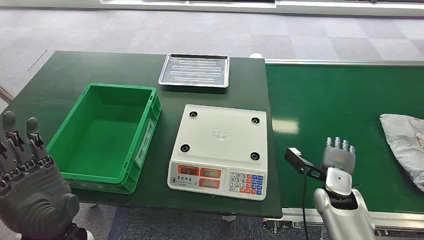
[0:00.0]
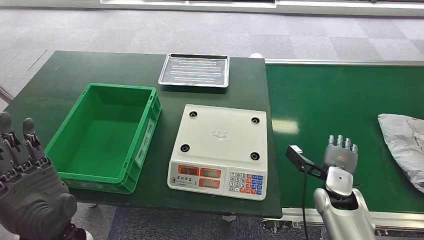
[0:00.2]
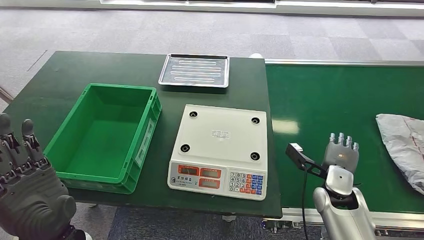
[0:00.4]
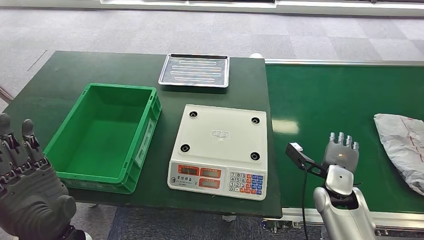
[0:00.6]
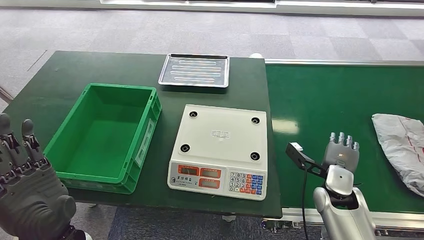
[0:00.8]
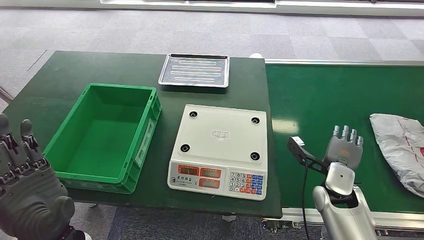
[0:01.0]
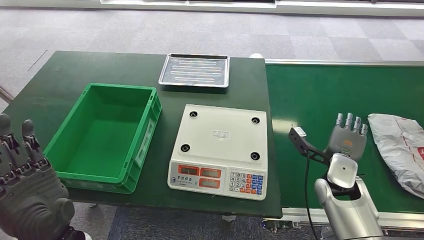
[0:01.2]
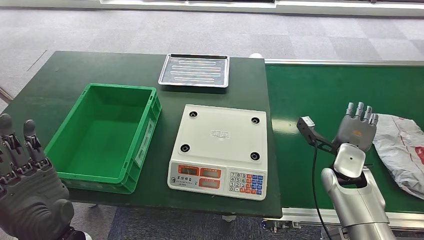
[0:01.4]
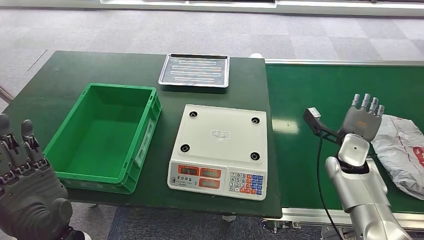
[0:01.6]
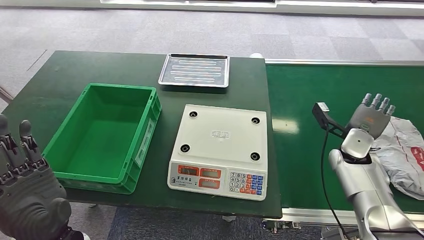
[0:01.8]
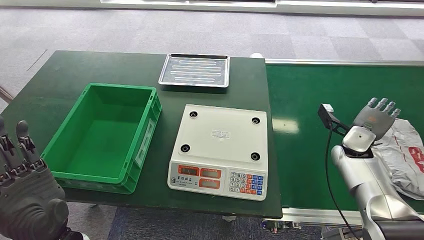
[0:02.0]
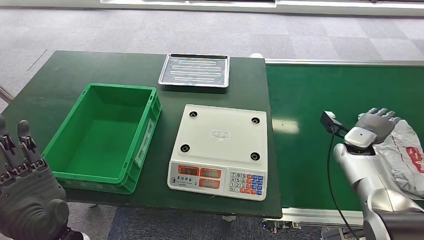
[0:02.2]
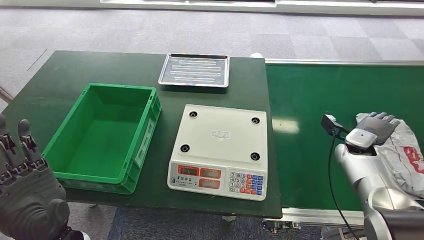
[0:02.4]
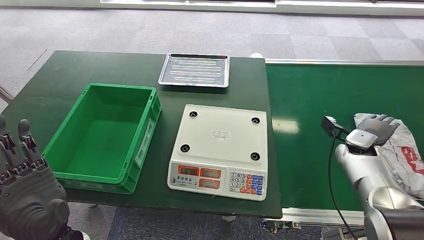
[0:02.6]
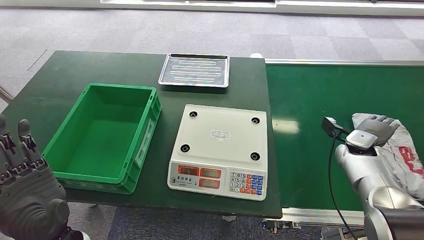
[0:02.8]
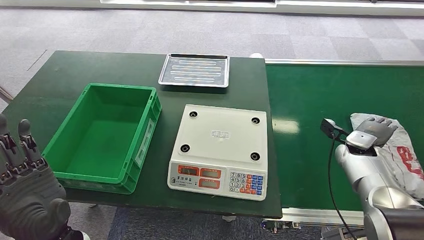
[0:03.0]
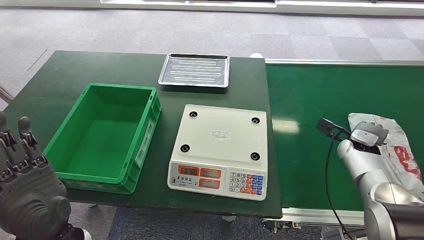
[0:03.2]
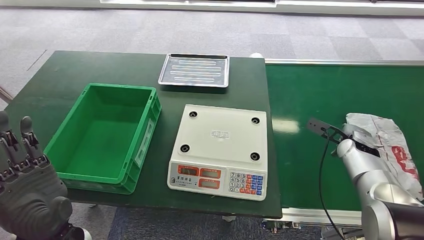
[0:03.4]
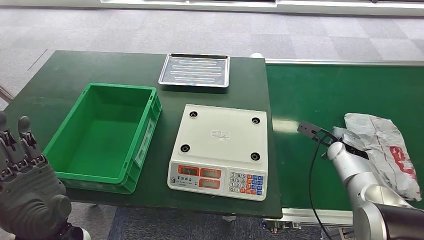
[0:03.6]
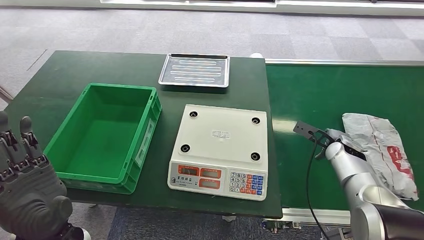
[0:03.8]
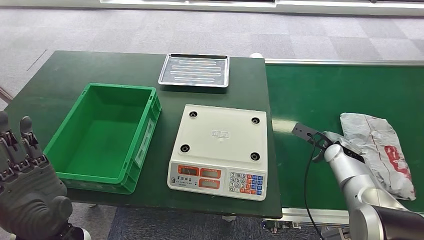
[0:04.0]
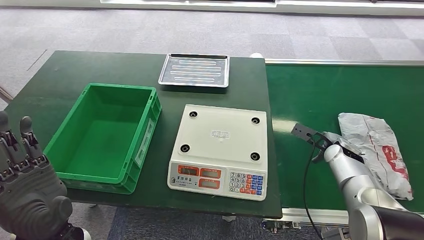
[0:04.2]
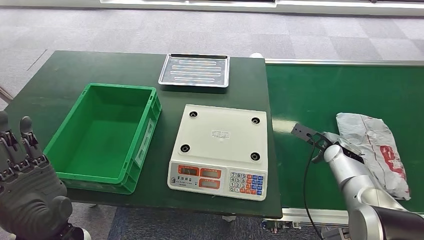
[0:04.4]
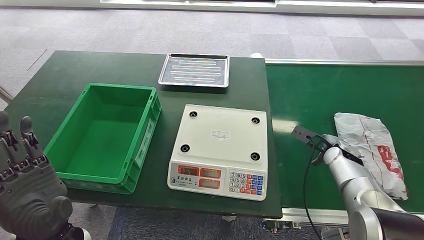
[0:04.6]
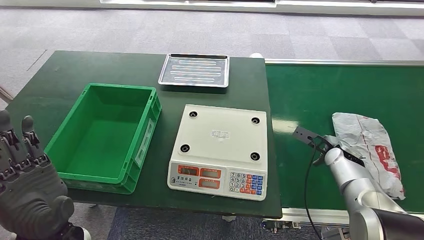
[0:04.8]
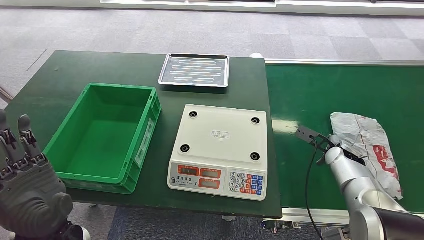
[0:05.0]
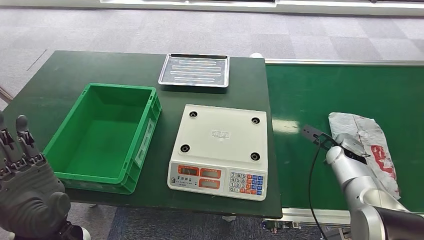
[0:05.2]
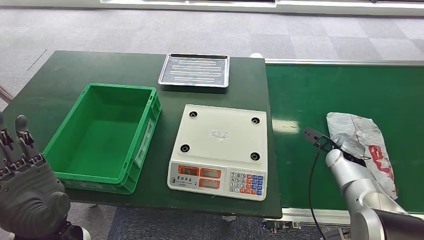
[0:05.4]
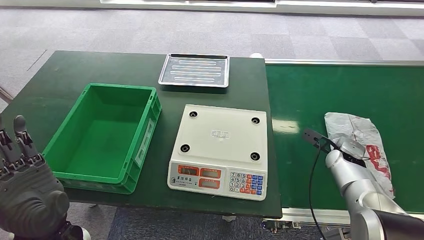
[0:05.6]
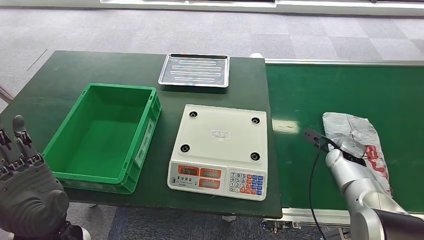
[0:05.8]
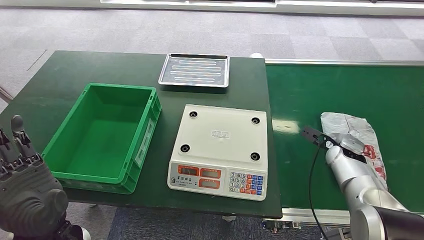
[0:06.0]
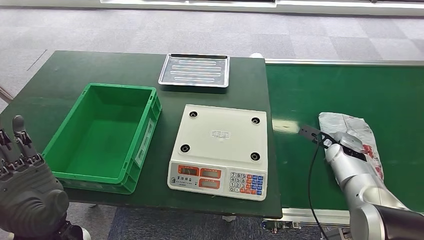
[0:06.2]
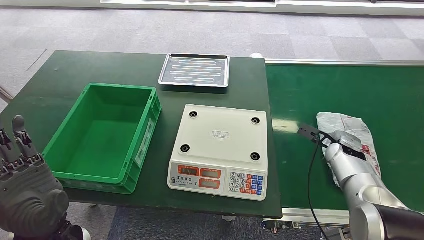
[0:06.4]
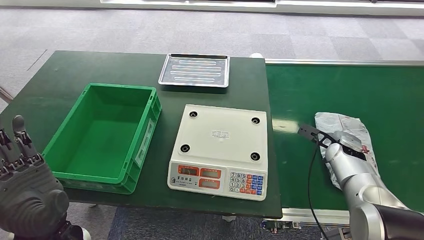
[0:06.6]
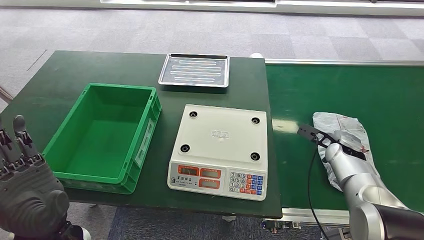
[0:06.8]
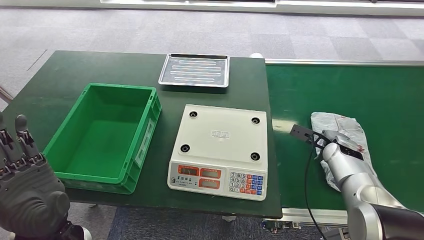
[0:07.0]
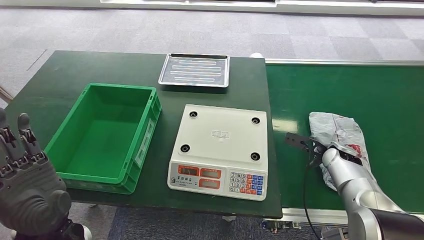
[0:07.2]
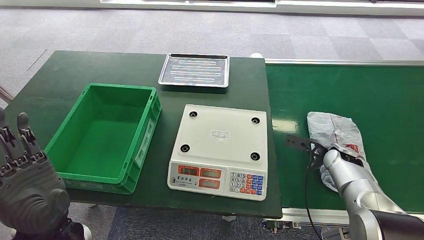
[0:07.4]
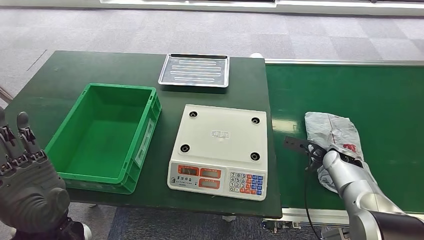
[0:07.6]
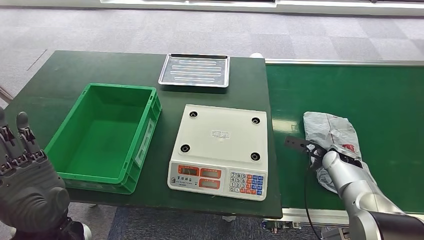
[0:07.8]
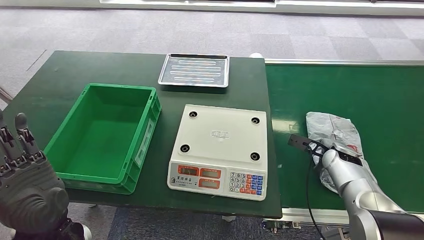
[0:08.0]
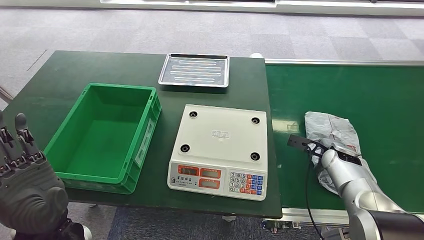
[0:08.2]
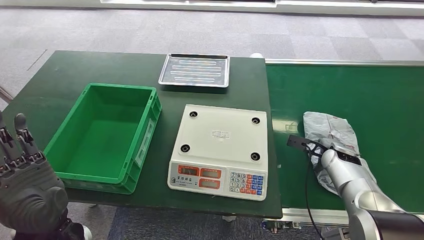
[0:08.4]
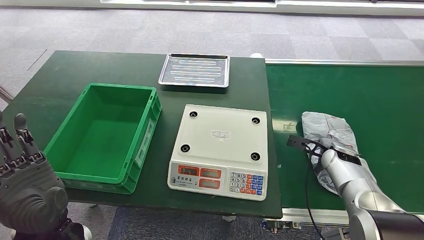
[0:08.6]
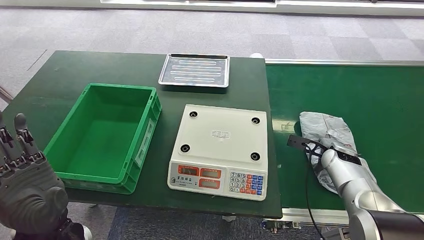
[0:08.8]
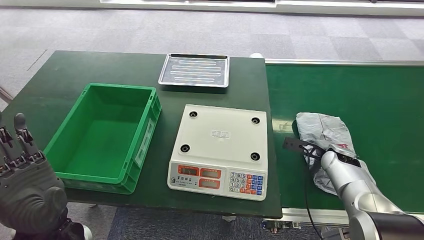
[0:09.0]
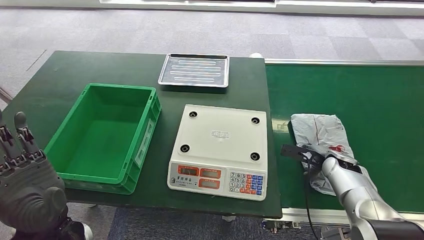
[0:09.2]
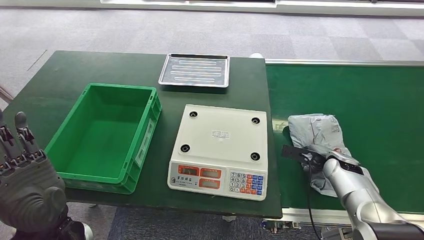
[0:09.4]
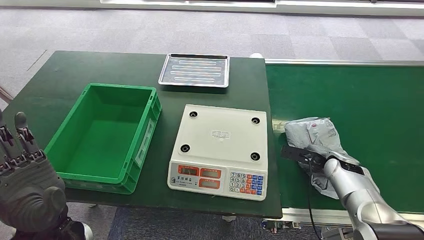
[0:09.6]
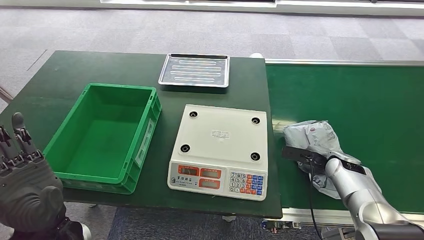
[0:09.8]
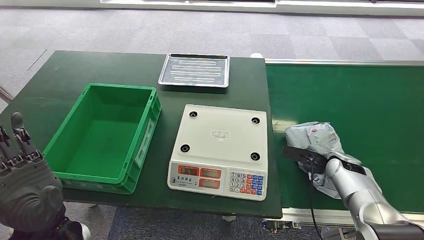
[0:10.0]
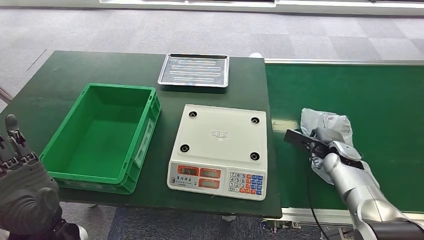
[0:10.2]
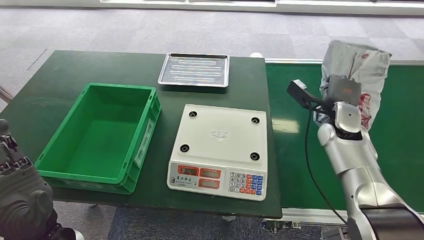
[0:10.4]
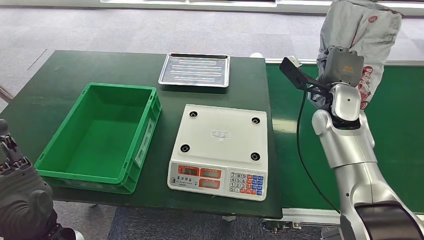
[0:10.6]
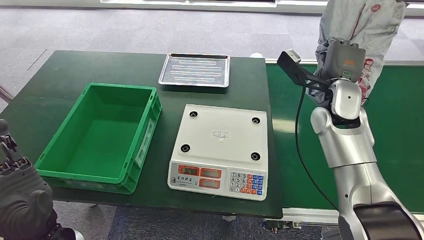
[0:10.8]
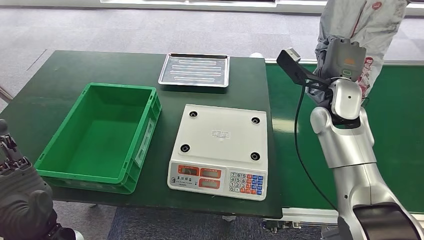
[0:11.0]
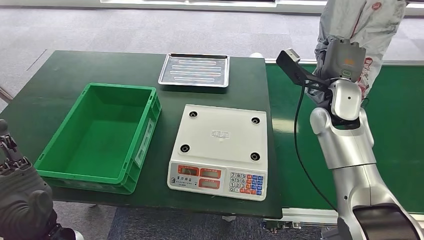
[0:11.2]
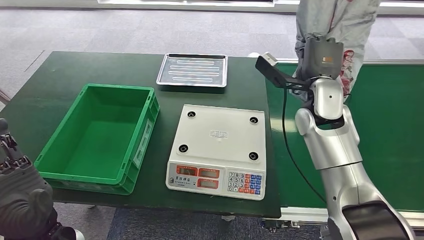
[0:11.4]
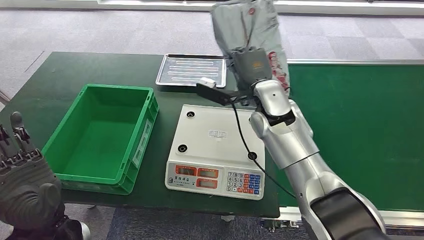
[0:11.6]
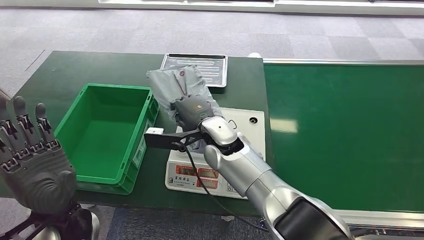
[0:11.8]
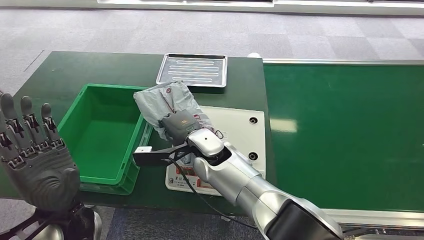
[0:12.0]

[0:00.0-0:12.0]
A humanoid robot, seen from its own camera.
Task of the whole recording: Weigh the package on the weighing device and place it in the left basket.
Step, 0:00.0 to 0:11.2: Pick up the package from the conveyor belt.
0:01.6 to 0:03.0: The right hand travels to the right by approximately 5 cm.
0:04.4 to 0:06.0: The hands move only a little.
0:07.6 to 0:09.0: The hands make only small movements.
0:09.0 to 0:10.4: The right hand heads upward and forward, covering some 10 cm.

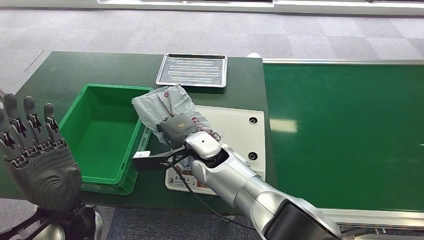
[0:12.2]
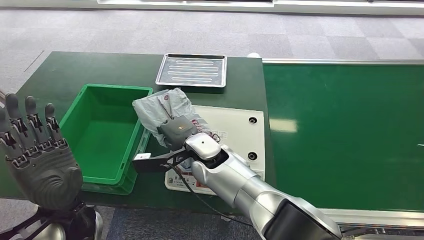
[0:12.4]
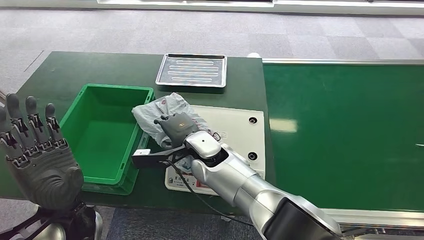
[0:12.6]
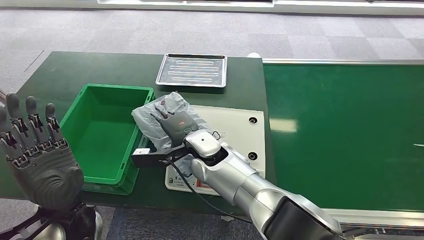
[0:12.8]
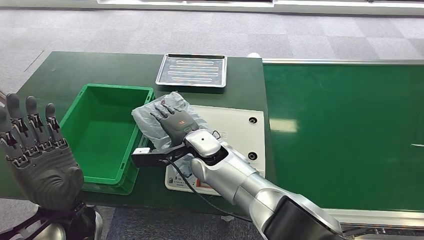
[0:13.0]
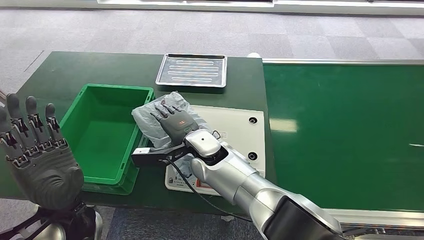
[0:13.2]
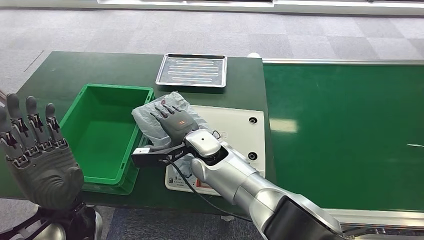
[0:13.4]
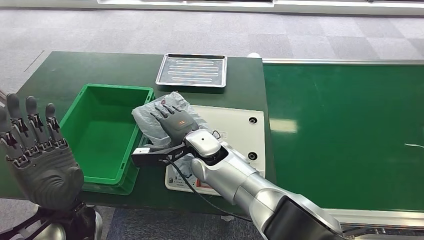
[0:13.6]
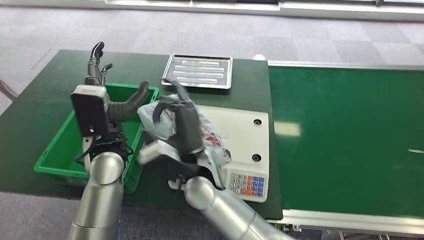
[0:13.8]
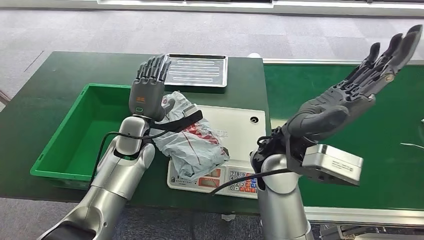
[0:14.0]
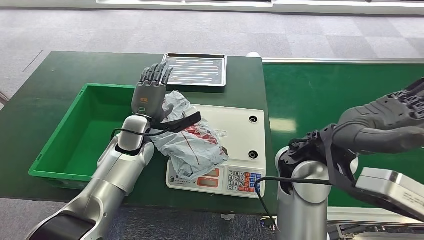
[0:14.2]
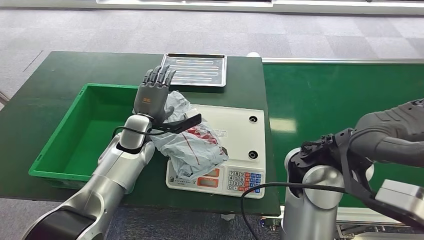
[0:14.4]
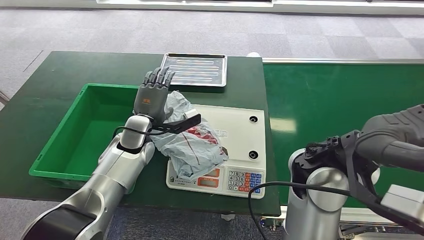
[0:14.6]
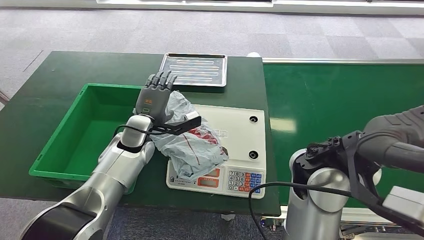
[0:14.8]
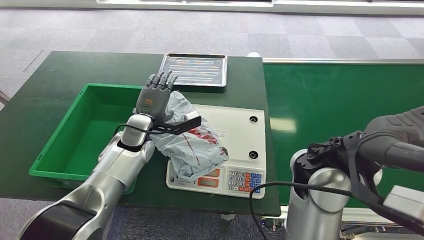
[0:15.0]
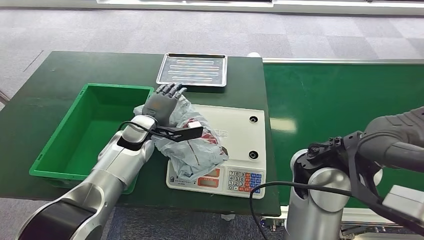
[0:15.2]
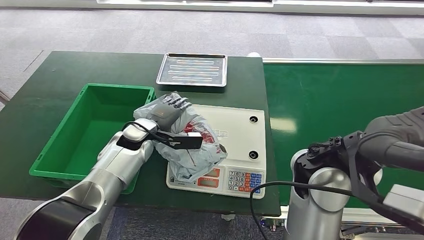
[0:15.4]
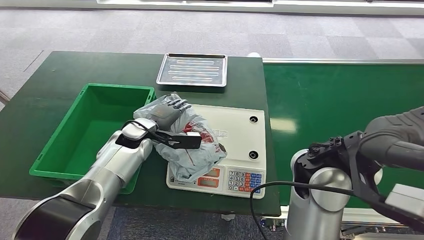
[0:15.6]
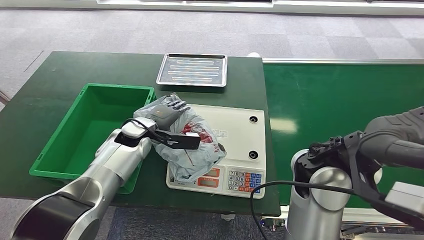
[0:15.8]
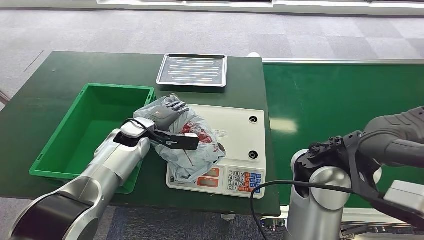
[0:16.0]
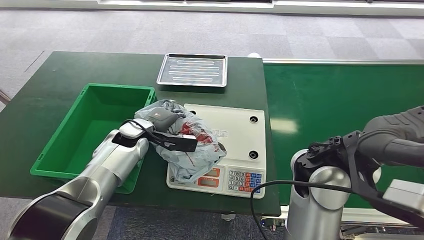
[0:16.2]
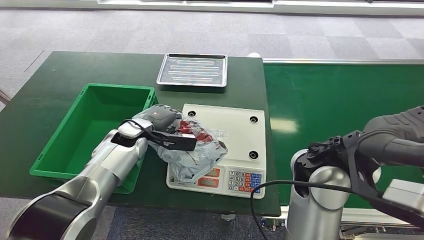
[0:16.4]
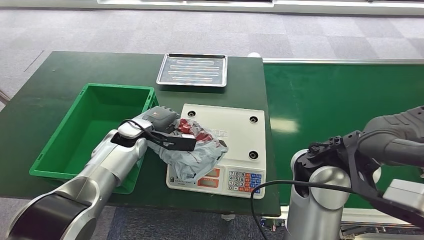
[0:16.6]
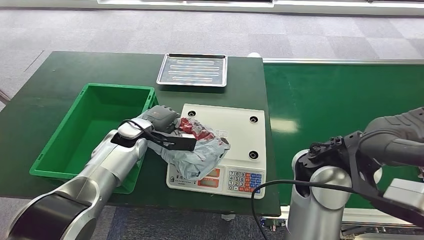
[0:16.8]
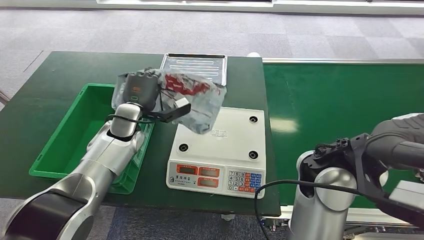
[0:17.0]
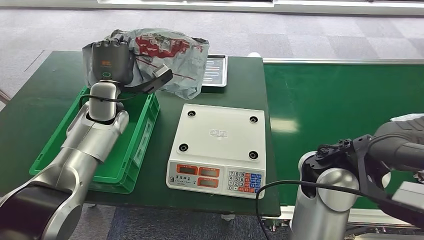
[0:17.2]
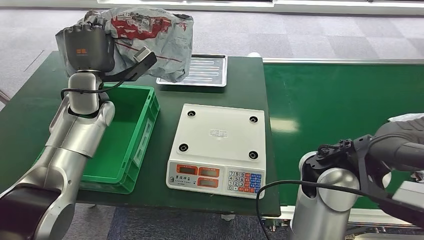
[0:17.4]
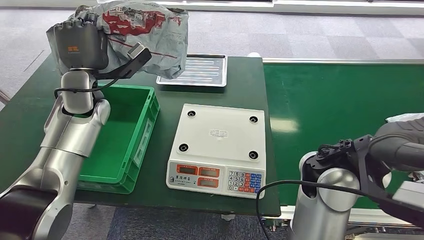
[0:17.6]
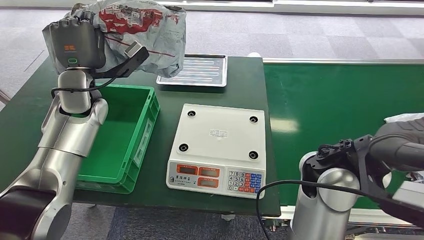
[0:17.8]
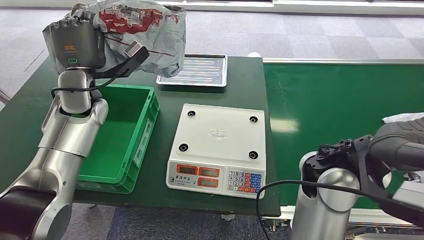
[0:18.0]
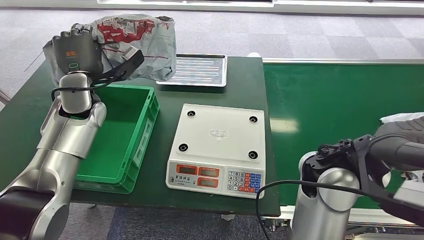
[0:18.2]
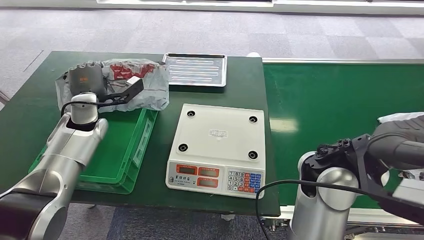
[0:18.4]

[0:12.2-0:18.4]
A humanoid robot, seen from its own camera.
Task of the whole recording: Weigh the package on the weighing device and place it in the left basket.
Step, 0:12.2 to 0:13.4: Place the package onto the inbound machine.
Step, 0:13.6 to 0:17.6: Pick up the package from the inbound machine.
Step, 0:17.8 to 0:18.4: Place the package into the parcel locker.
0:15.4 to 0:16.8: The hands make only small movements.
